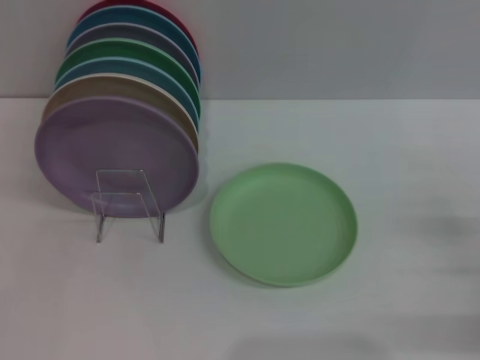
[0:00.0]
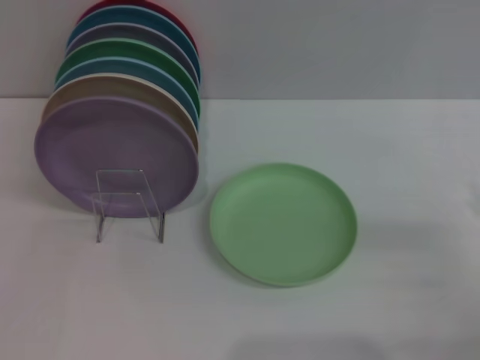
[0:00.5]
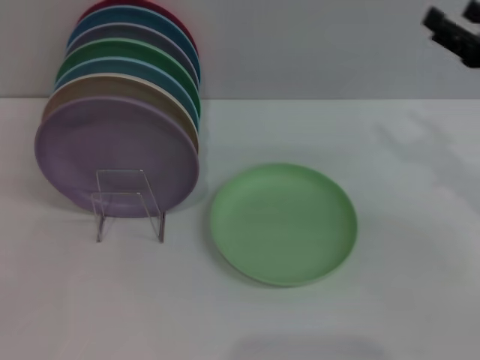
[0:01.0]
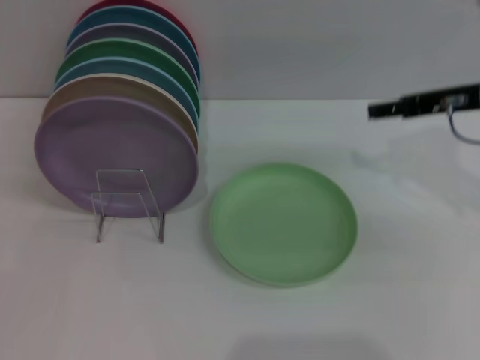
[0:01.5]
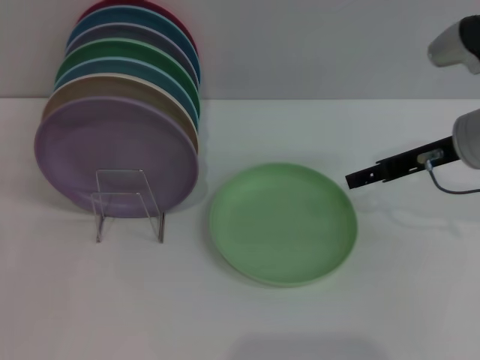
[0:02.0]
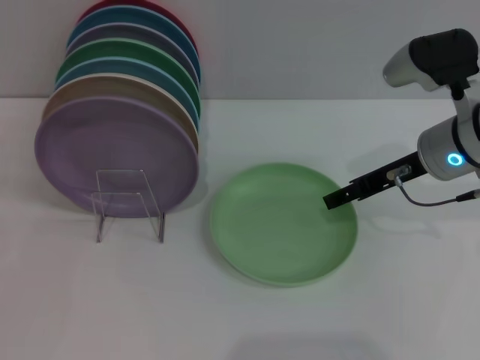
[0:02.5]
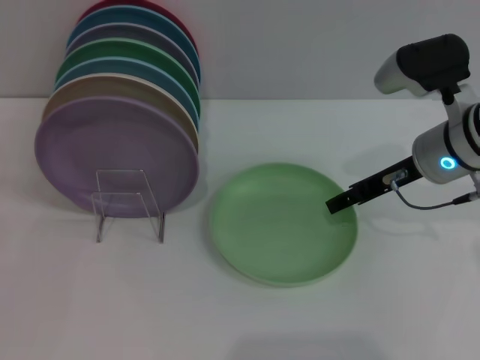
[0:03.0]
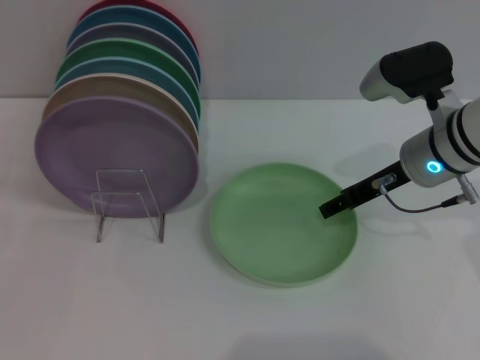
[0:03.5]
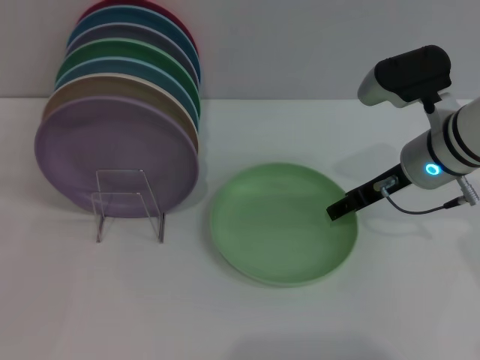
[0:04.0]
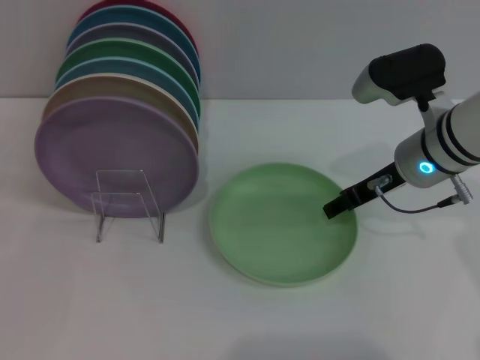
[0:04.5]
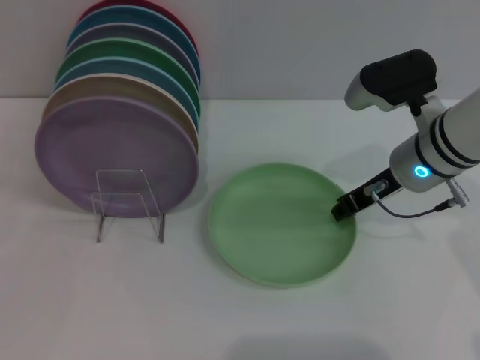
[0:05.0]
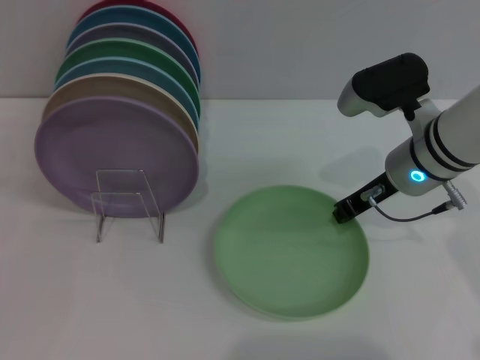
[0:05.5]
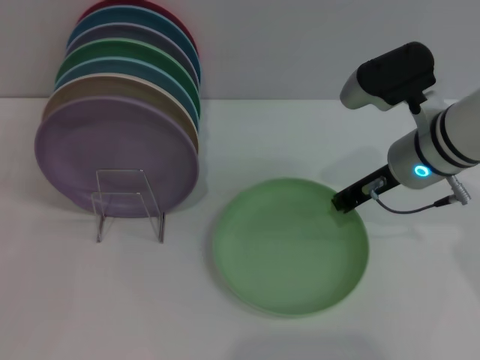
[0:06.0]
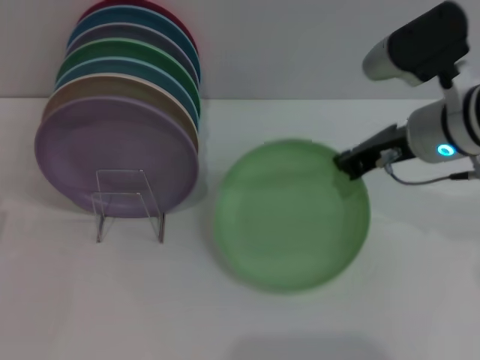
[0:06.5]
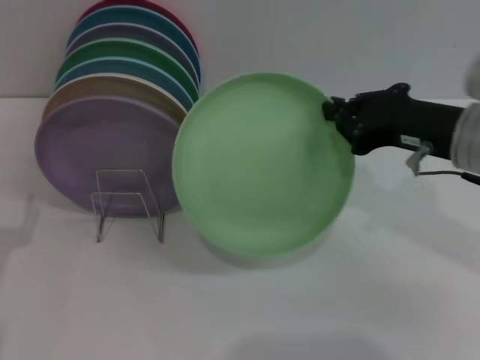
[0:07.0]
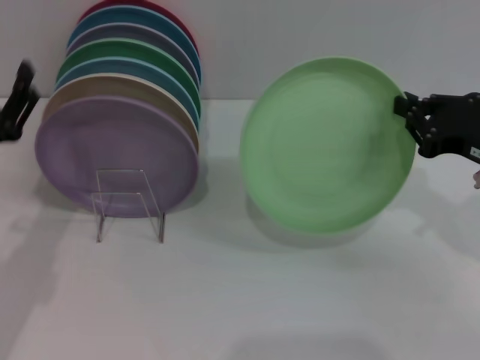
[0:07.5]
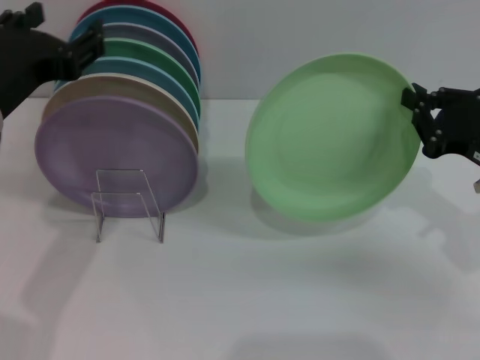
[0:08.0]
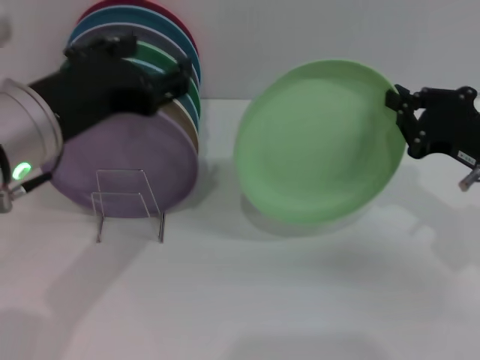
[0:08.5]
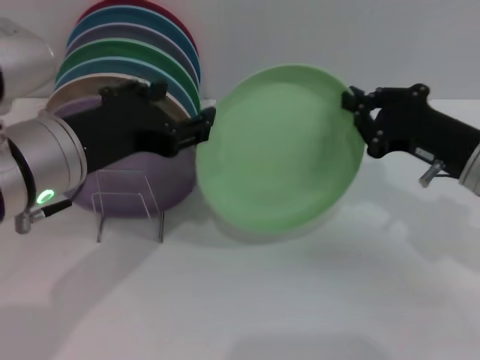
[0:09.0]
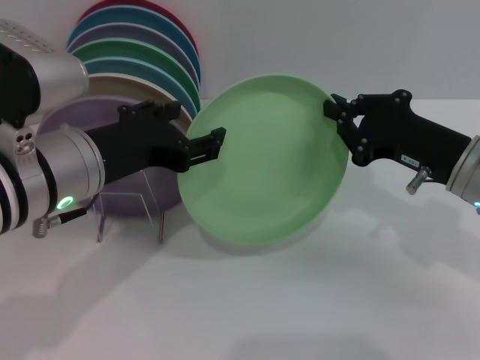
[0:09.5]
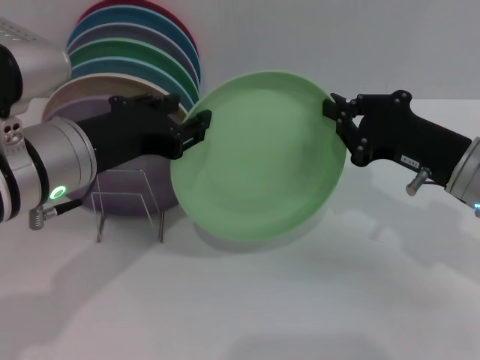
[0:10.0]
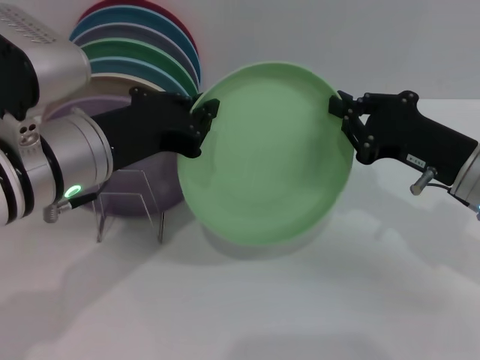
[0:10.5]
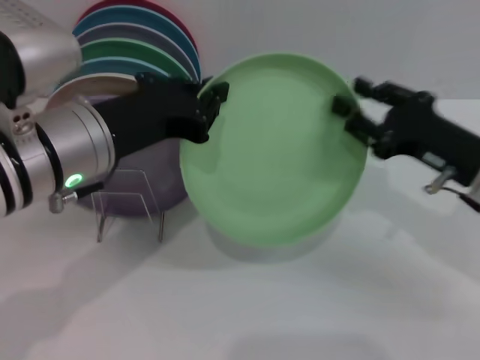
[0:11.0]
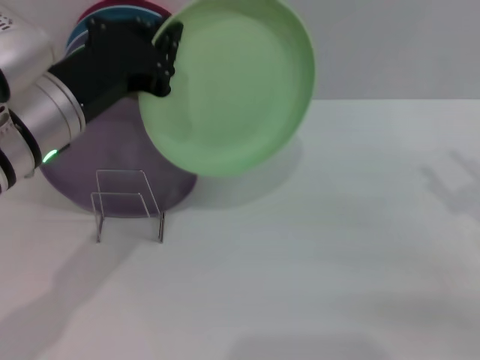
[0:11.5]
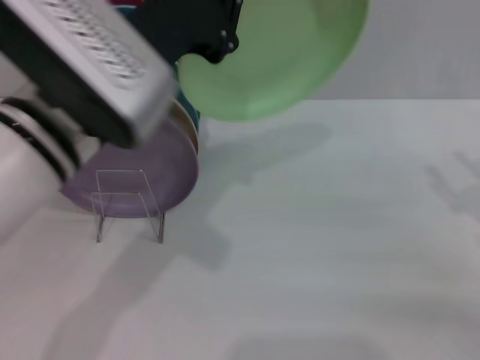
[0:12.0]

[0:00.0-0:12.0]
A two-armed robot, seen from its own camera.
Task of the whole recording: Grip the plate with one hand, pass it to the other, then set it on the shelf.
Step, 0:00.0 to 0:06.5: Pick up the plate with the right gripper.
Step, 0:07.0 to 0:11.0: Pass the plate from the right gripper to the left gripper.
0:00.0 to 0:02.0: The right gripper heads forward, to the left and upward, covering roughly 20 cm.
0:02.0 to 0:04.0: The right gripper moves roughly 5 cm.
0:04.0 to 0:06.0: The right gripper closes up.
0:06.0 to 0:08.0: The right gripper travels to the right and backward by some 15 cm, while the left gripper heads upward and to the right, covering about 20 cm.
0:08.0 to 0:10.0: The left gripper shifts by about 5 cm, while the right gripper moves to the left, approximately 5 cm.
0:10.0 to 0:12.0: The left gripper ends up approximately 5 cm from where it was, and closes its fingers; the right gripper travels to the right and backward by about 10 cm, and opens its fingers.

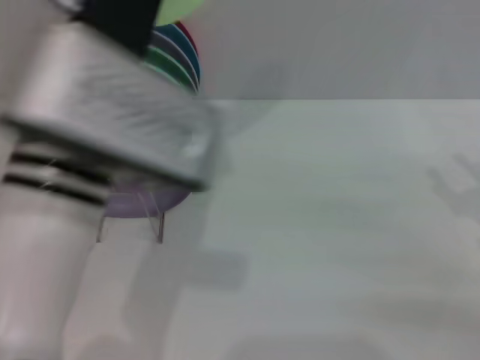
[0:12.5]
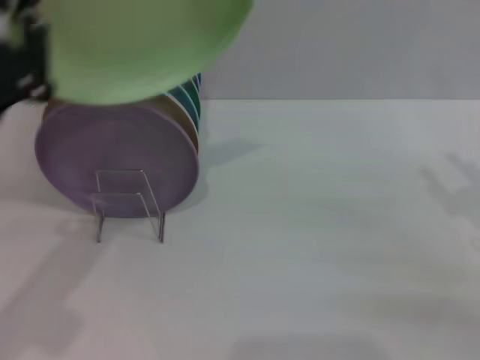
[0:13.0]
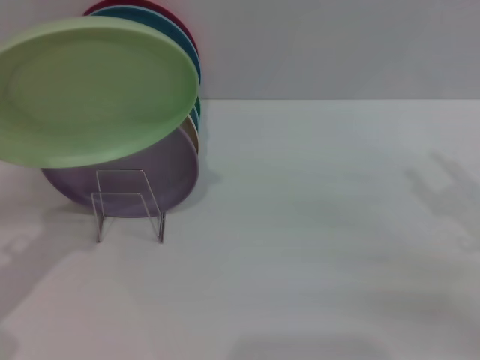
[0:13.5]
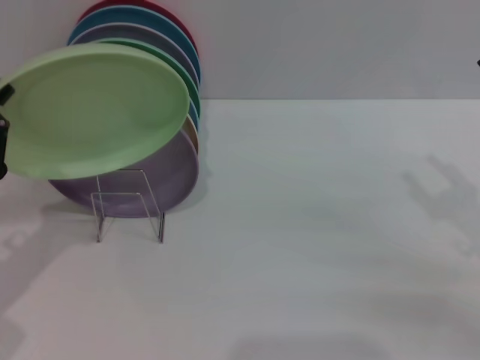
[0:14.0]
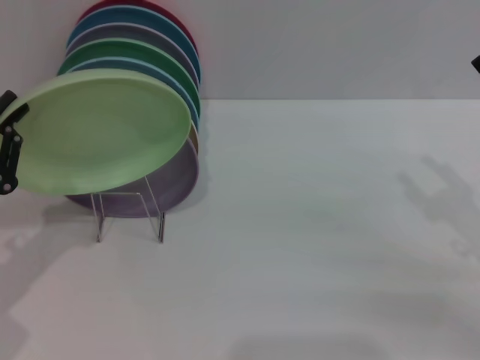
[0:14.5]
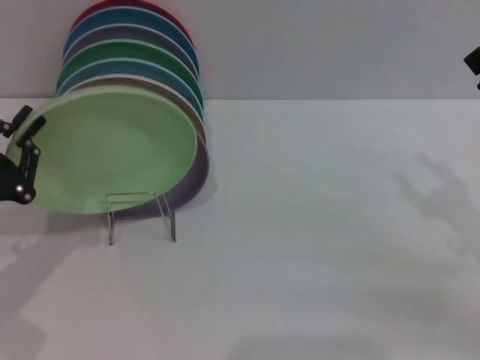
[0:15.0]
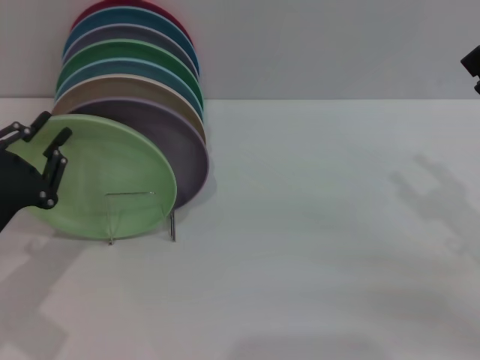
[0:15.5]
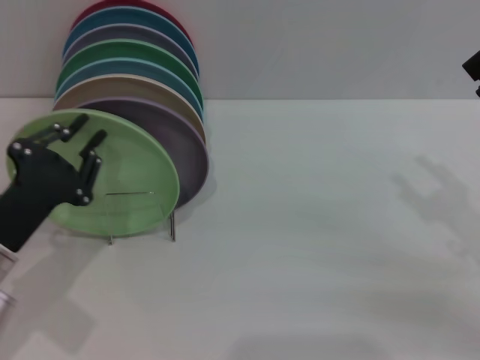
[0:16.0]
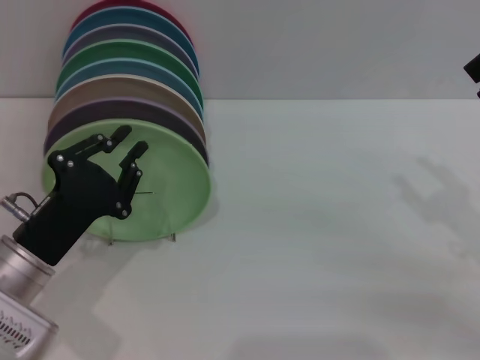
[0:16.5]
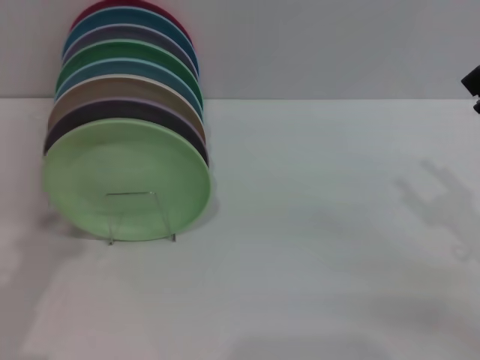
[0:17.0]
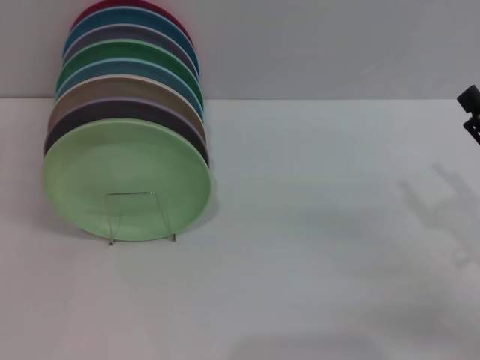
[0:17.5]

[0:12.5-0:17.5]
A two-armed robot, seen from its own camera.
Task of the whole recording: Grip the plate with one hand, pass it to the other, then set it on the shelf.
Step, 0:12.5 to 0:16.5: Place the plate on the shelf with the left gripper.
0:12.5 to 0:15.0: The left gripper goes approximately 25 cm to the left and downward.
0:15.0 to 0:17.5: The left gripper moves backward, about 5 cm.
